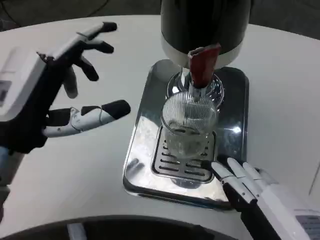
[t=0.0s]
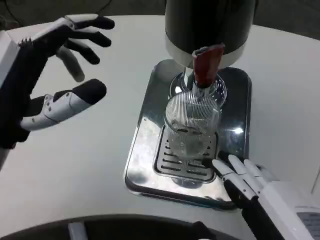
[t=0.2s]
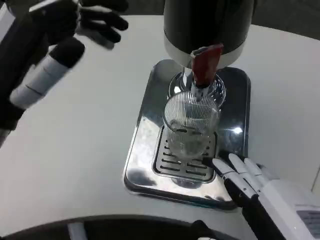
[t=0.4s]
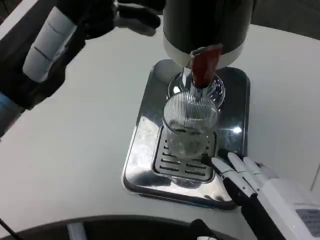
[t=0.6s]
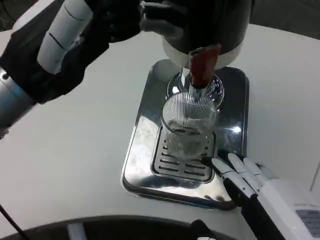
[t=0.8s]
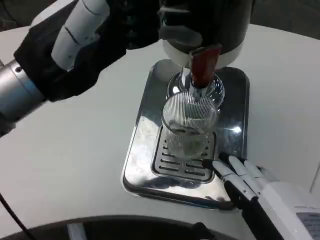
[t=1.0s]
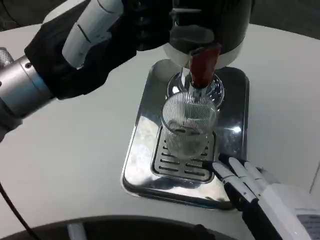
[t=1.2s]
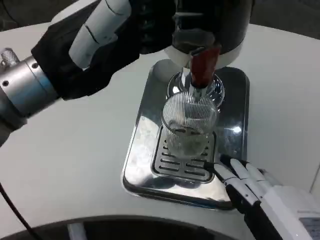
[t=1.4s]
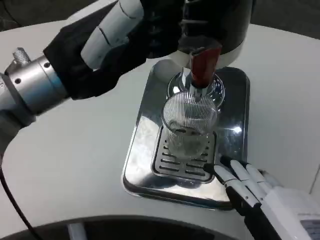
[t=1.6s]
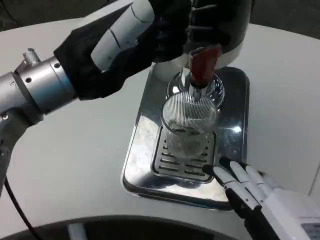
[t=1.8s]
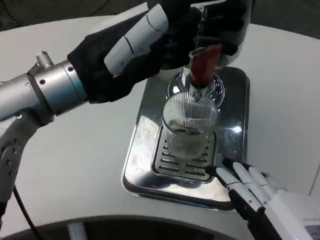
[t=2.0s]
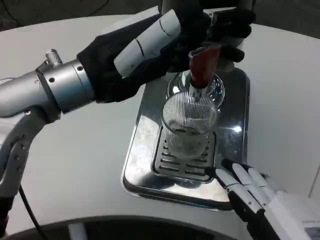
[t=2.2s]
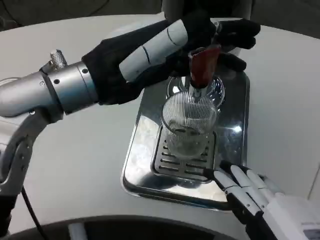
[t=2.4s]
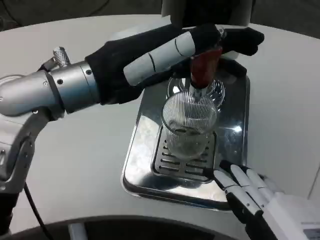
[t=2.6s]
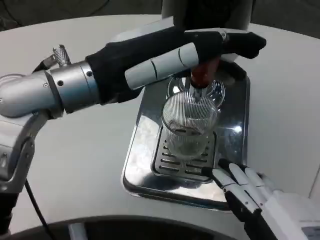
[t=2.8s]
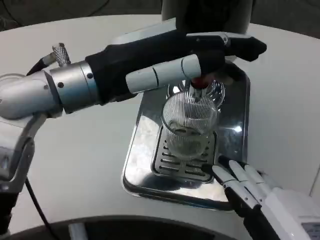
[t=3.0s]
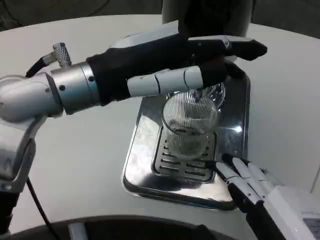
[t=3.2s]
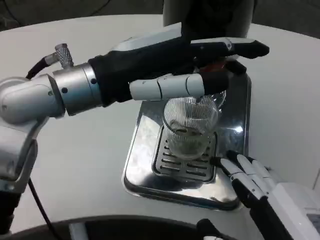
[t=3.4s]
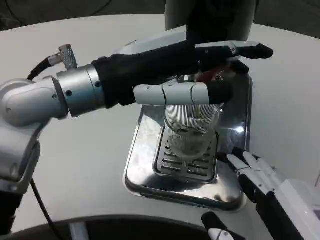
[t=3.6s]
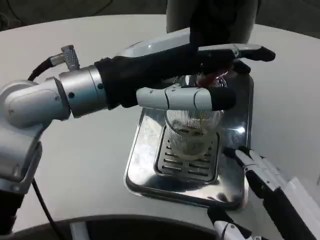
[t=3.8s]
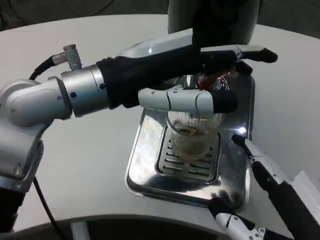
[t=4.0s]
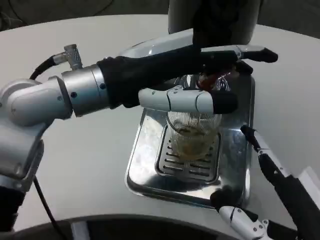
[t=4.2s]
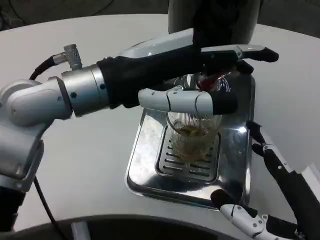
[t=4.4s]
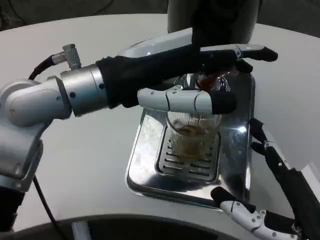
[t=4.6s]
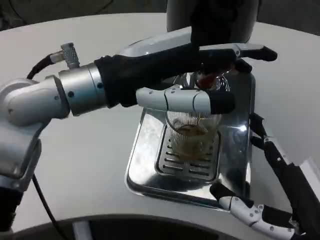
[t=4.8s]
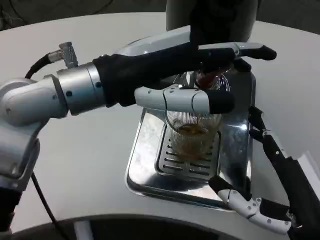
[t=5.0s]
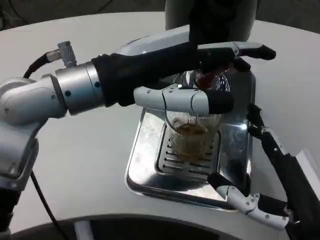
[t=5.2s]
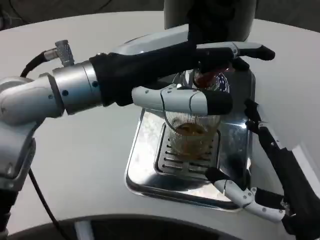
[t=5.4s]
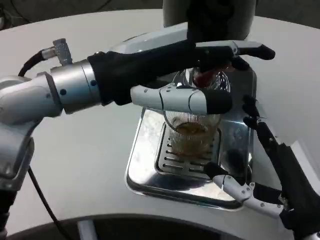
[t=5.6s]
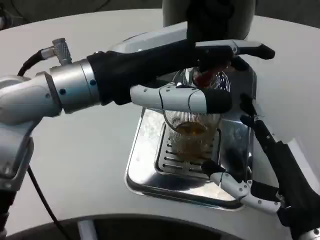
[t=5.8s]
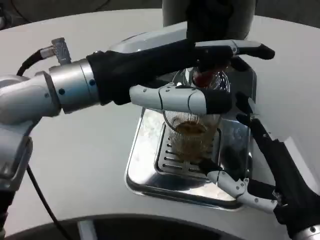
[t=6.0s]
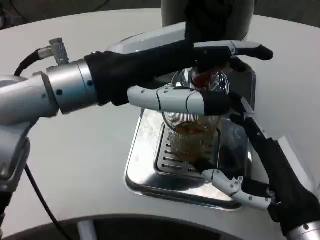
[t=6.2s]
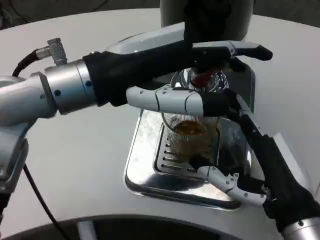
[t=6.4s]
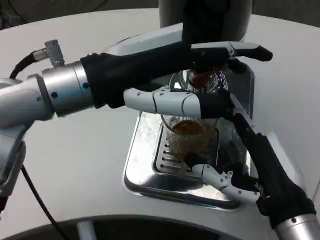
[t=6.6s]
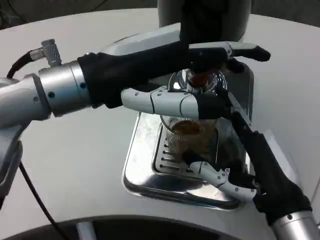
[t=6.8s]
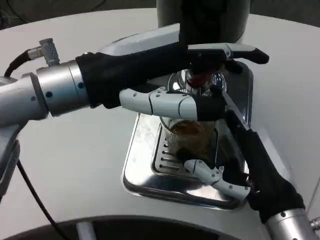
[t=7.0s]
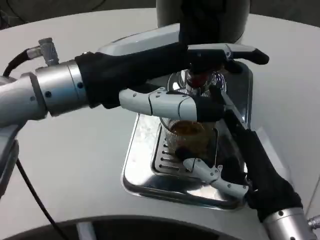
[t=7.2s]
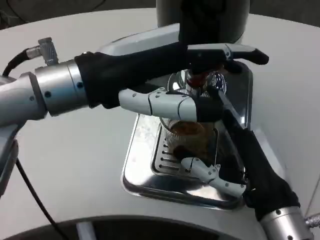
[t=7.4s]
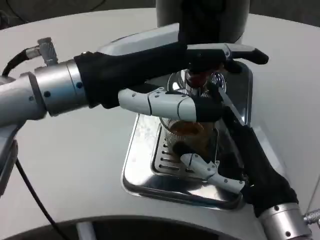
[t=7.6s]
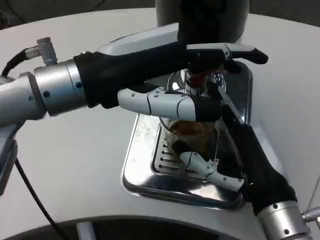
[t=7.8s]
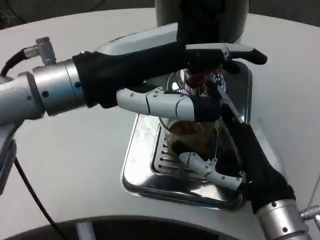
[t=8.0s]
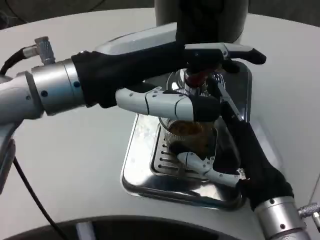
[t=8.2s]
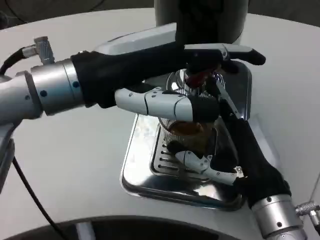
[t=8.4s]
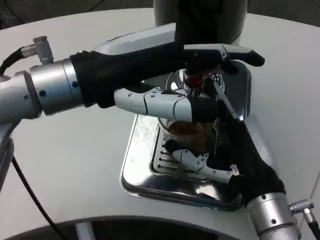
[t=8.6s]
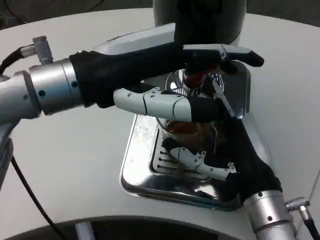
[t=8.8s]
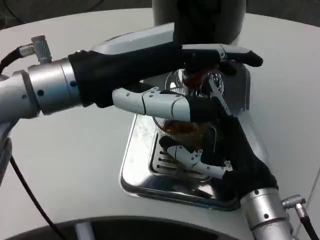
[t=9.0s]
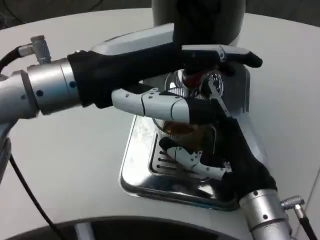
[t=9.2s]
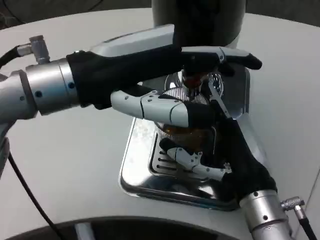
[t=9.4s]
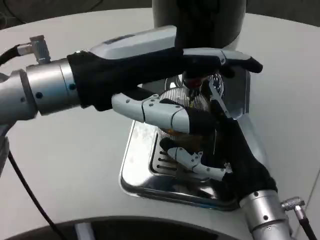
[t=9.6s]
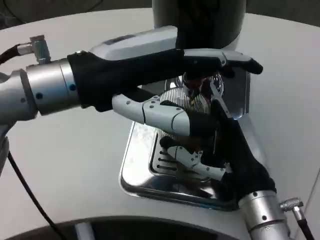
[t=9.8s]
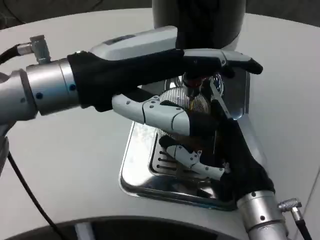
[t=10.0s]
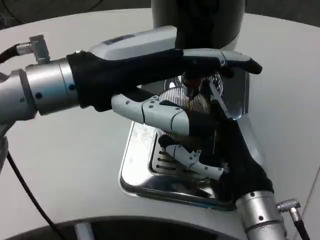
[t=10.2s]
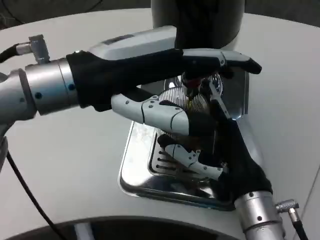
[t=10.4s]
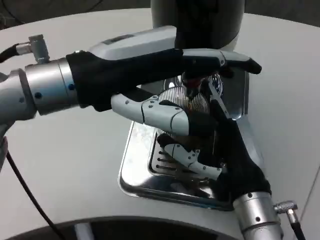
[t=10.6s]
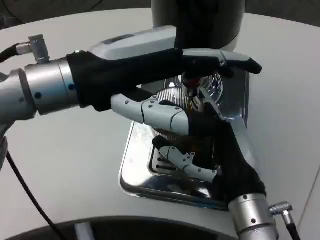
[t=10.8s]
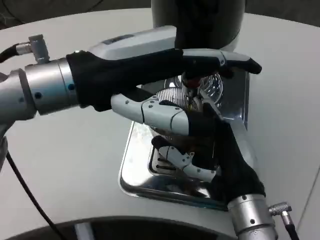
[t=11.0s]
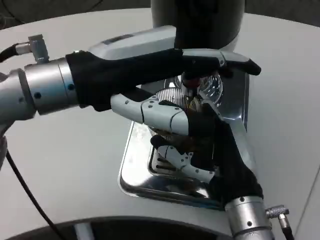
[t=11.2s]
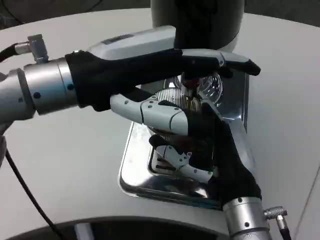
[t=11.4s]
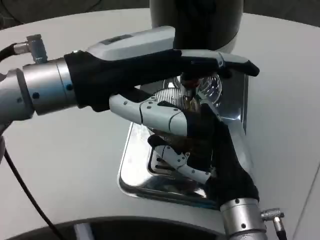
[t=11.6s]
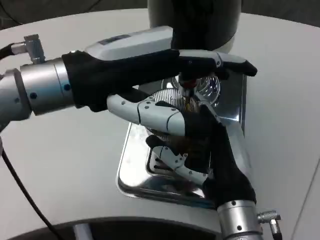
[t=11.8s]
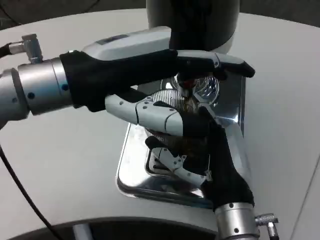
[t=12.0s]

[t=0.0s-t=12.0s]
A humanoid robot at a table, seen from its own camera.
Task of the whole recording: Grasp the cup under the faucet to collect the drink, then remove the cup.
t=0.0s to t=1.6s: The left hand moves upward, about 10 cm.
t=4.4s to t=6.0s: The right hand moves forward, roughly 5 cm.
t=9.0s to t=10.4s: The hands make only small movements.

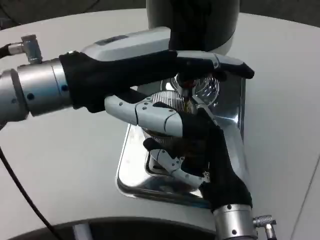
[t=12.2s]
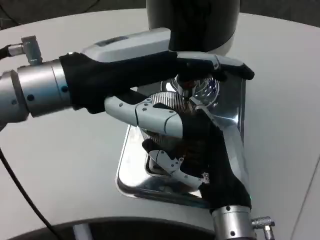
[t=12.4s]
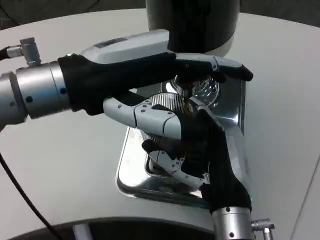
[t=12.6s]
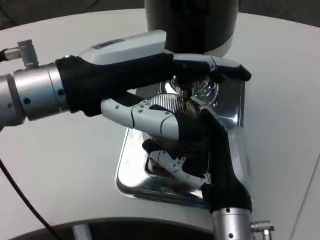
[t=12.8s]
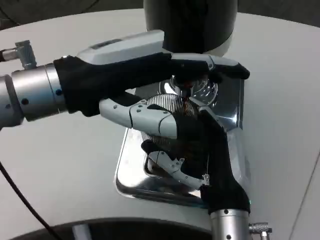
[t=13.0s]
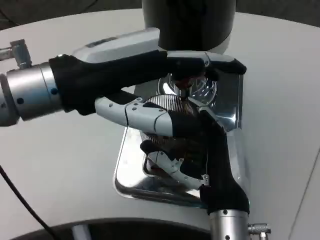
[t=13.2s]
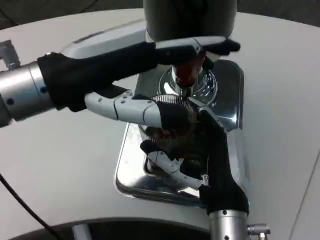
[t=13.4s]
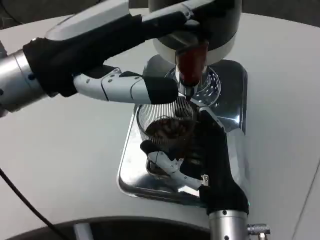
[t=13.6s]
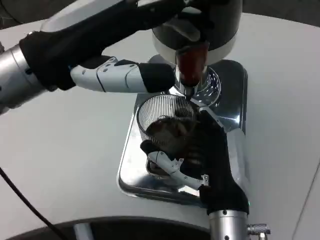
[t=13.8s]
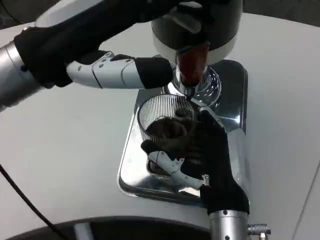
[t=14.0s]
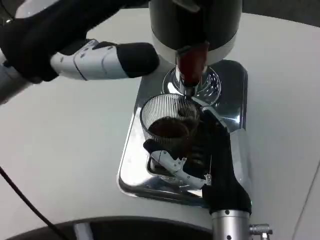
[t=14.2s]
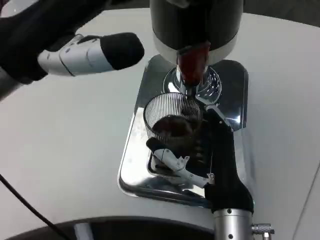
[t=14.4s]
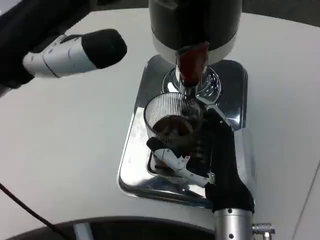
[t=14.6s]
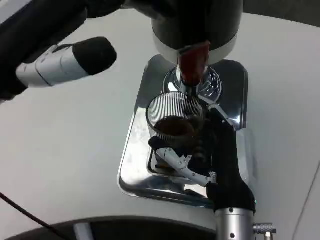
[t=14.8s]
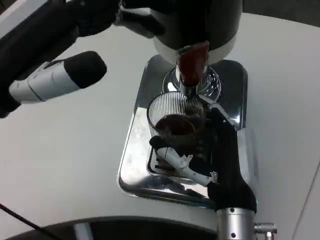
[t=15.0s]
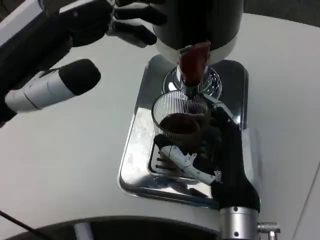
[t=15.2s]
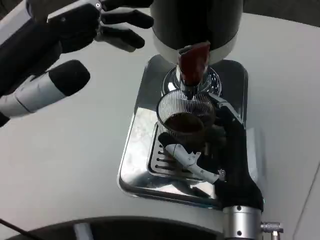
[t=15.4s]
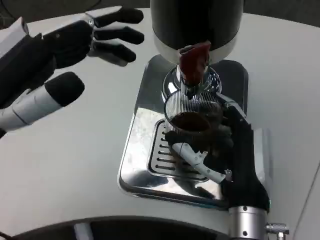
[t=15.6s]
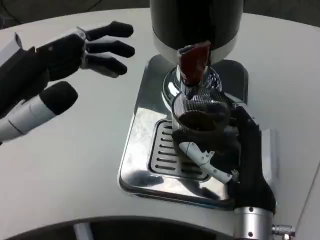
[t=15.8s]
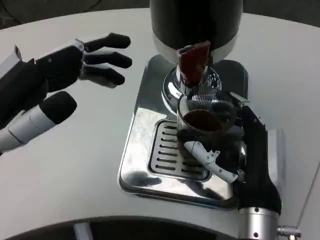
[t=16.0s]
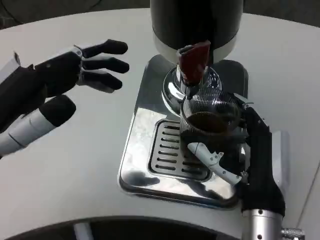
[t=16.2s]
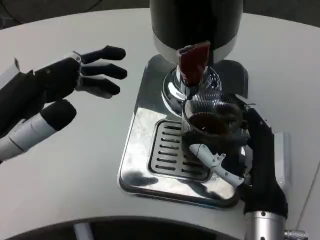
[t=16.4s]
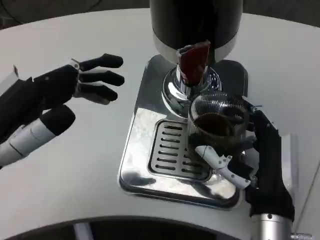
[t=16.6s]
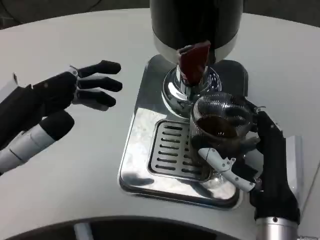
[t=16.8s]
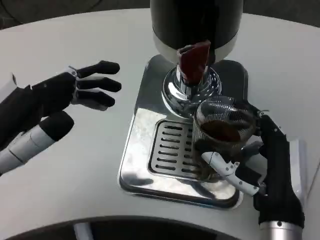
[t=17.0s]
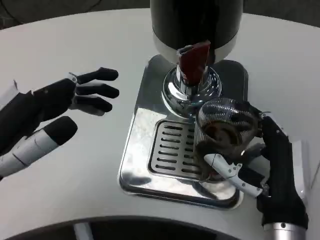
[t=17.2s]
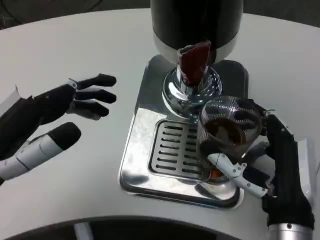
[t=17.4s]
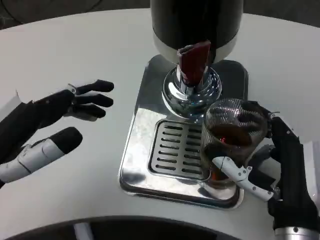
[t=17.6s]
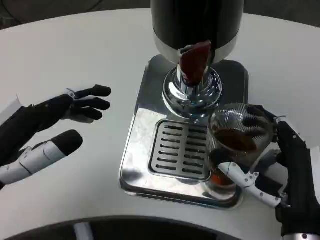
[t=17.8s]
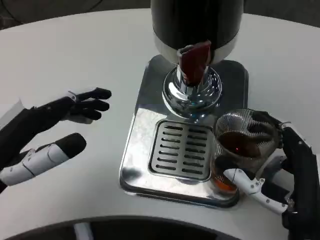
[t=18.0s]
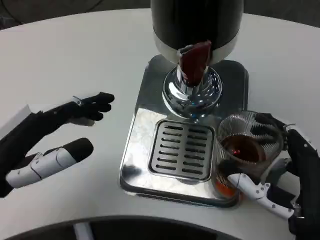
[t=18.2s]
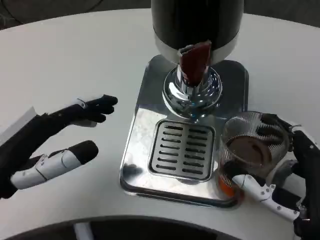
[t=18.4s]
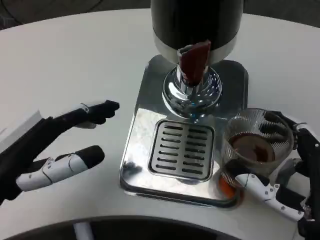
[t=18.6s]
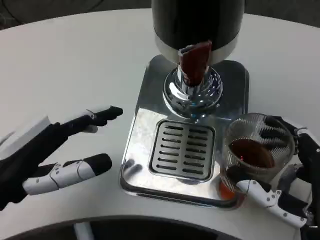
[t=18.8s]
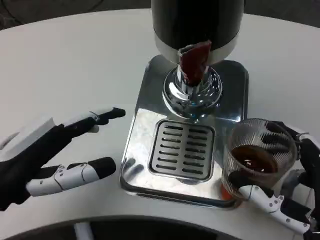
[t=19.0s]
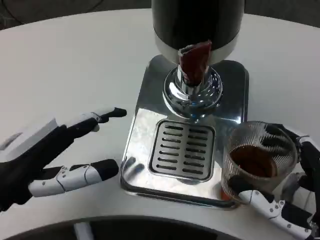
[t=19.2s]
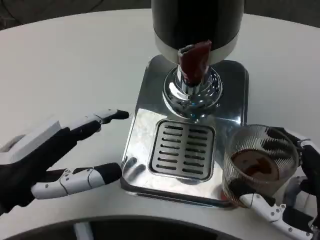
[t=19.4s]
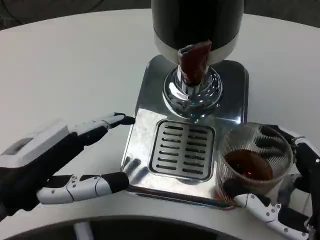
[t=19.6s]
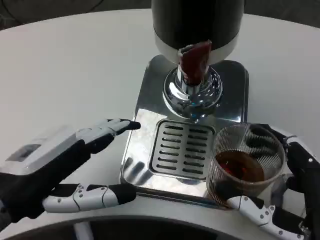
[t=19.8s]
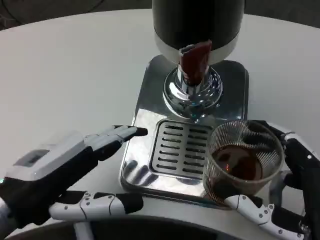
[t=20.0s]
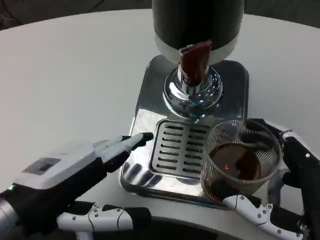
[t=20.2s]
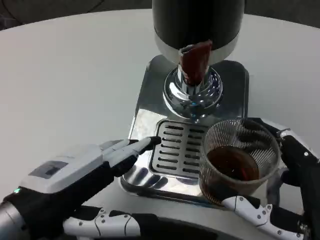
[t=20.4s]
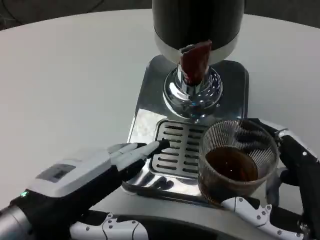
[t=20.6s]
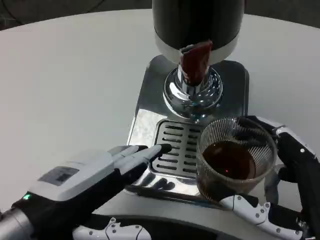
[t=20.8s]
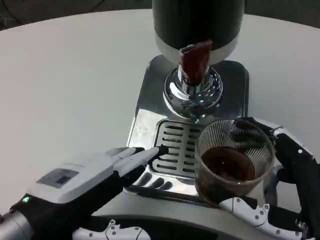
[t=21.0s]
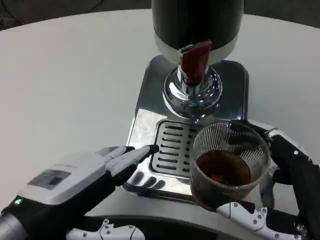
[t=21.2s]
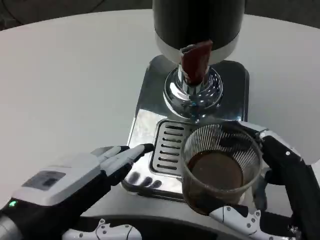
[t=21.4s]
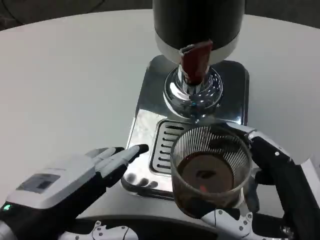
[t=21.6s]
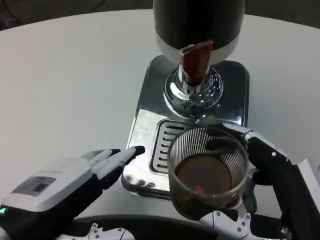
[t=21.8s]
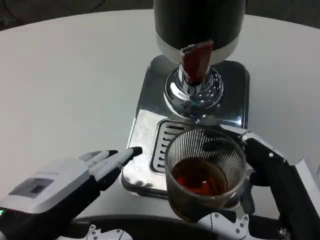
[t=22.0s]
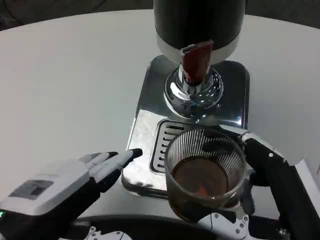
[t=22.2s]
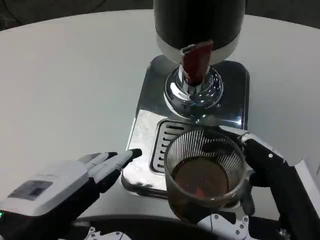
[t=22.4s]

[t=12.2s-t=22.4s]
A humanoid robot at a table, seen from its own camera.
Task of the whole recording: Grasp the cup under the faucet to collect the drink, then remove the cup.
t=13.6s to t=15.2s: The left hand ends up about 5 cm from where it was.
t=15.2s to t=16.6s: The left hand goes about 5 cm downward.
t=16.6s to t=18.0s: The right hand changes place by about 5 cm.
t=19.4s to t=21.0s: The left hand shifts by roughly 5 cm.
